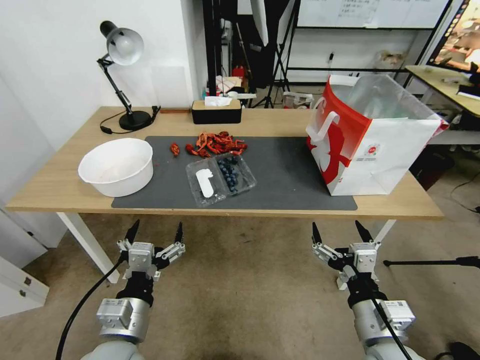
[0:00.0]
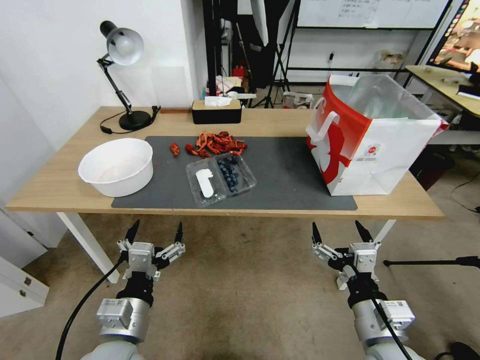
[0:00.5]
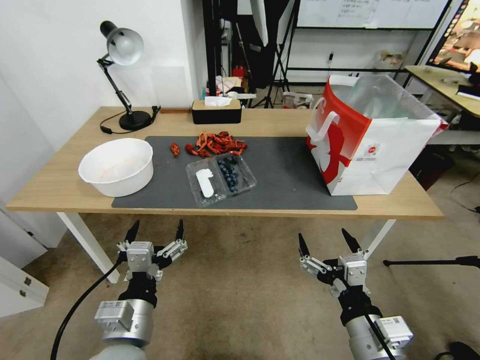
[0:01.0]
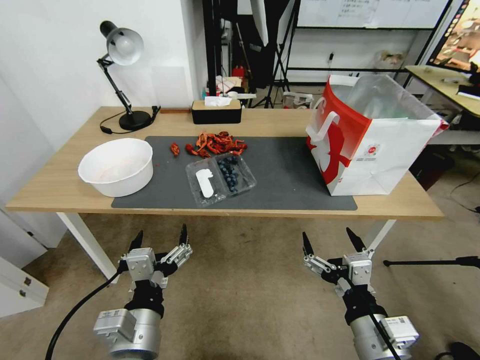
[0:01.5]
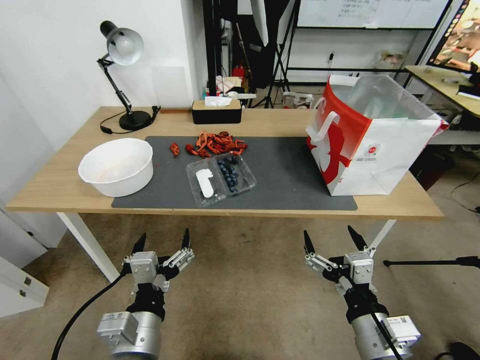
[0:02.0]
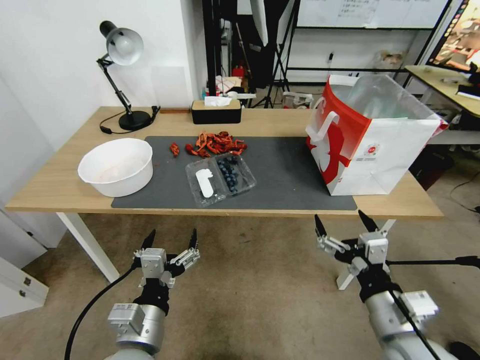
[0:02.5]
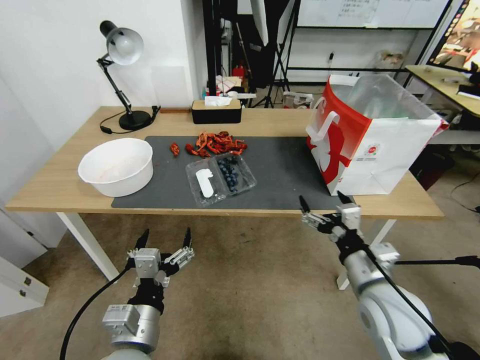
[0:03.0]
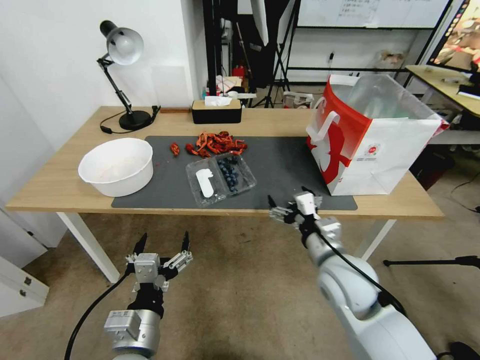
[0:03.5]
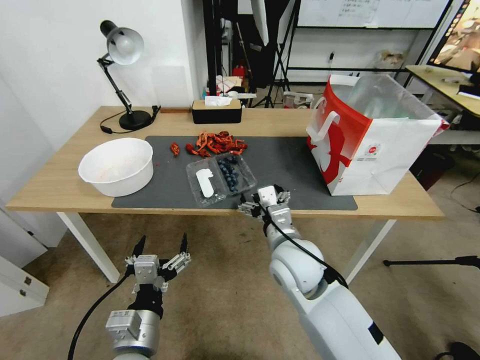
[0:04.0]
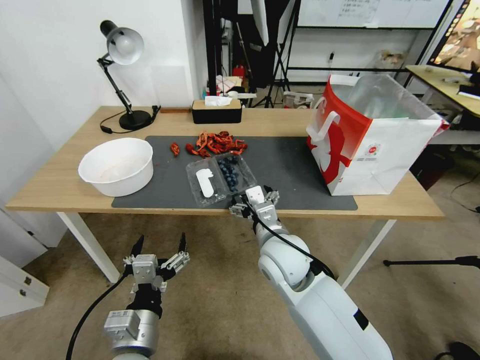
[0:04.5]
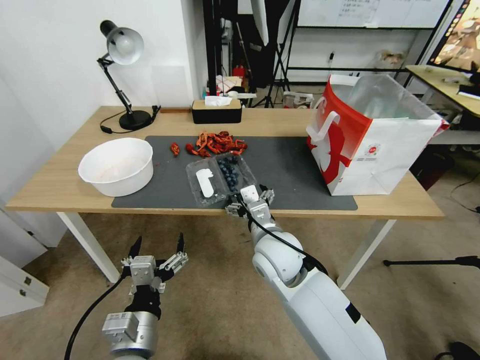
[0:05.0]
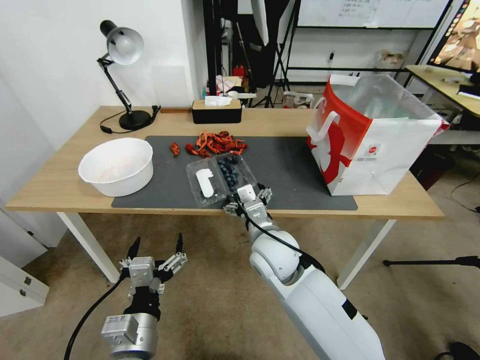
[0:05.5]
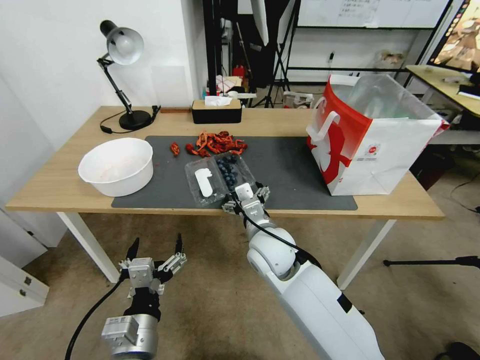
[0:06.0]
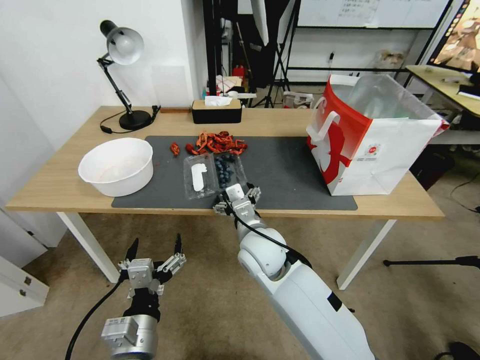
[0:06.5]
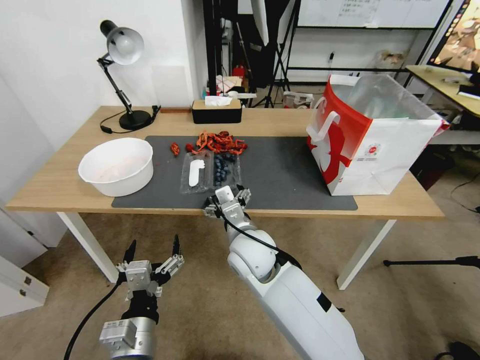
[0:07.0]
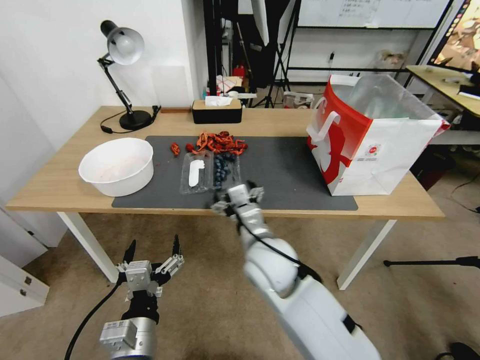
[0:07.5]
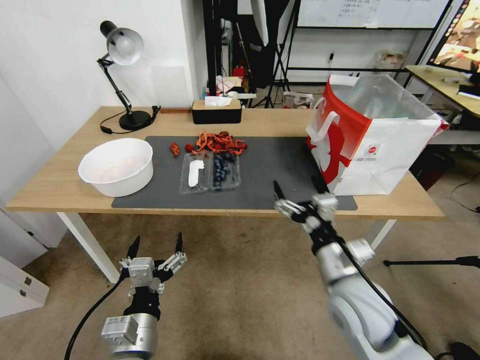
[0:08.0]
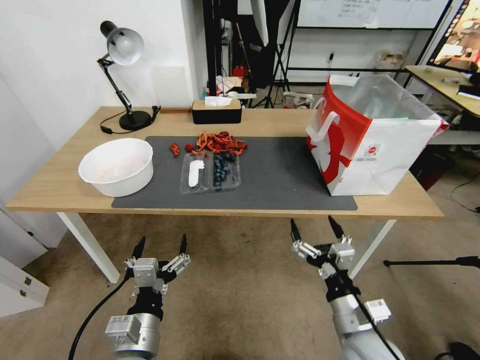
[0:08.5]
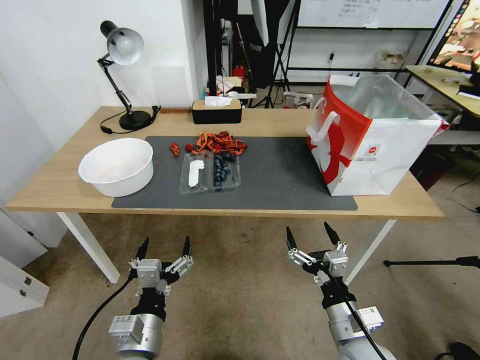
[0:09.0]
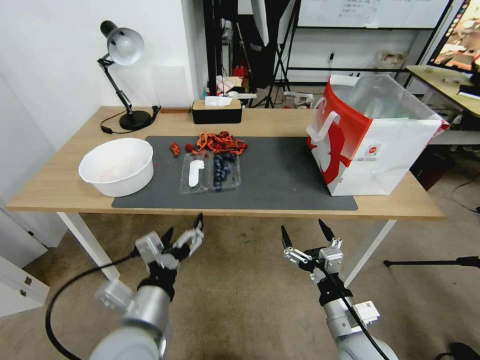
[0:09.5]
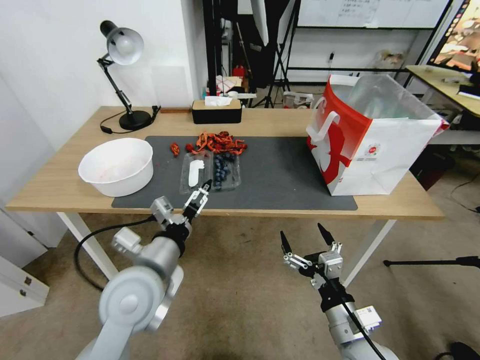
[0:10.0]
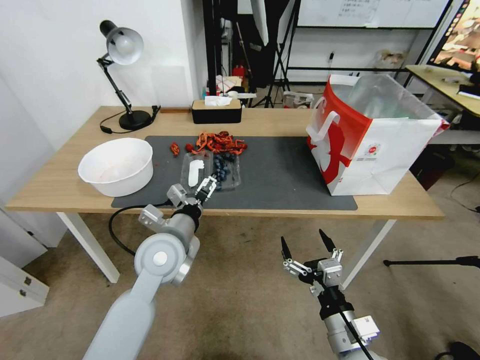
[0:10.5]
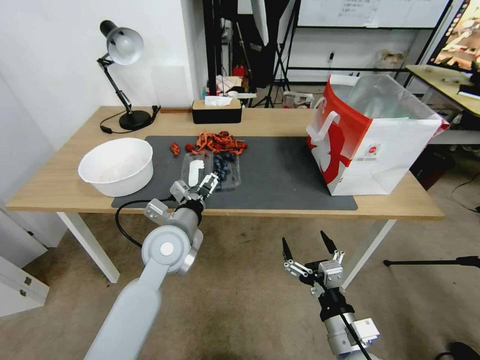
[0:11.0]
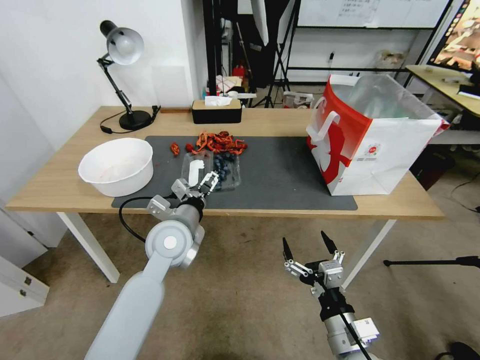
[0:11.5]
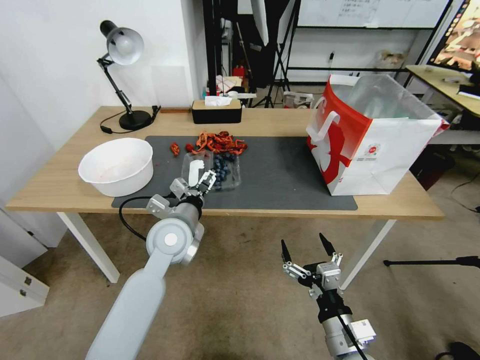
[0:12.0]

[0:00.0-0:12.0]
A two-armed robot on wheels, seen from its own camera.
Task of the whole recording: Close the takeout container lid, then place the container into the takeout bag.
0:02.0 to 0:04.0: The right gripper goes some 20 cm forward and to the left.
0:04.0 to 0:06.0: The right gripper changes place by about 5 cm.
0:06.0 to 0:08.0: The right gripper travels to the right and backward by some 15 cm.
0:08.0 to 0:10.0: The left gripper is displaced forward and upward by about 15 cm. The right gripper goes roughly 10 cm backward and downward.
0:10.0 to 0:12.0: The left gripper goes approximately 10 cm forward.

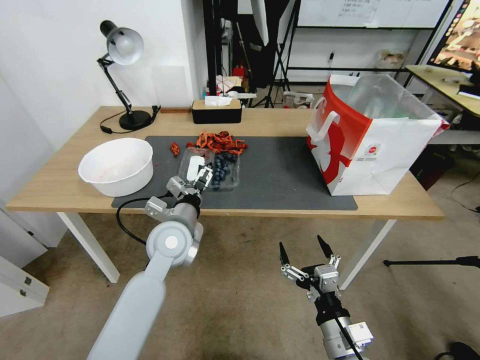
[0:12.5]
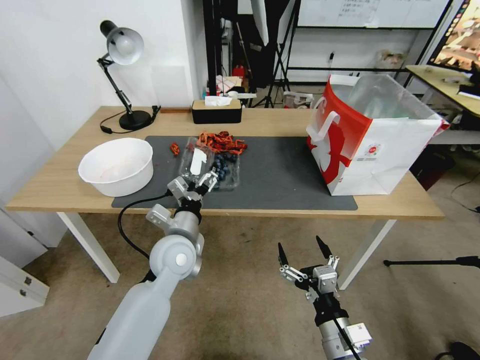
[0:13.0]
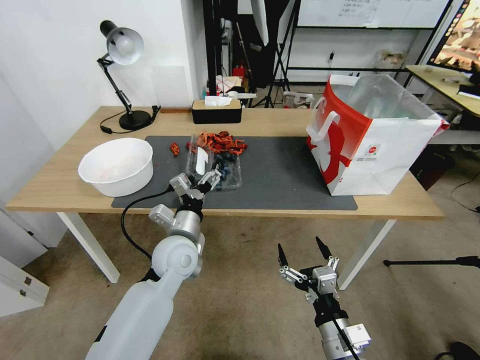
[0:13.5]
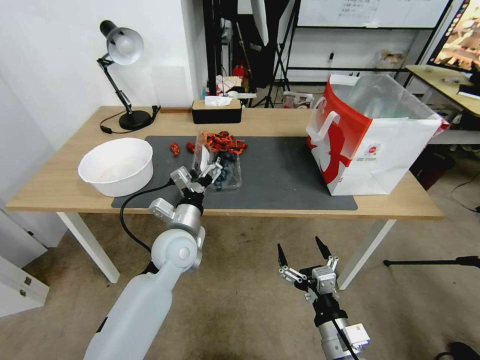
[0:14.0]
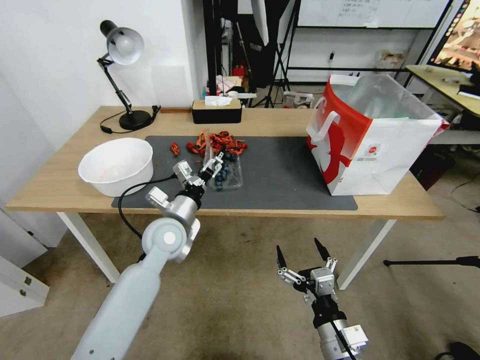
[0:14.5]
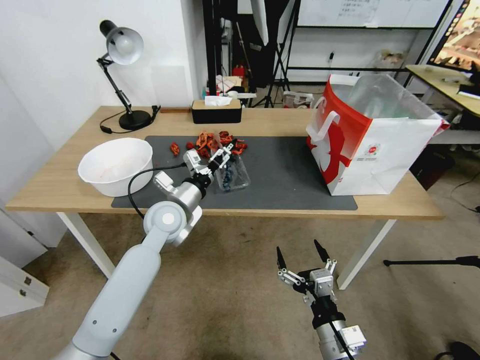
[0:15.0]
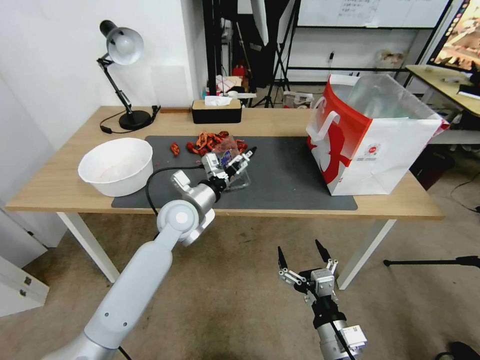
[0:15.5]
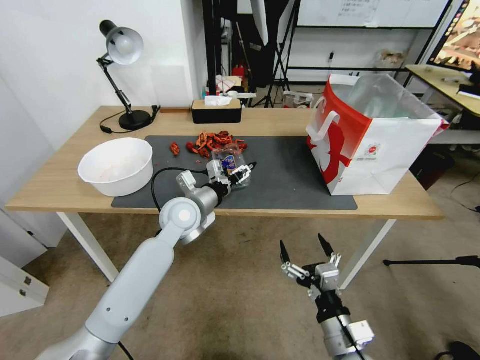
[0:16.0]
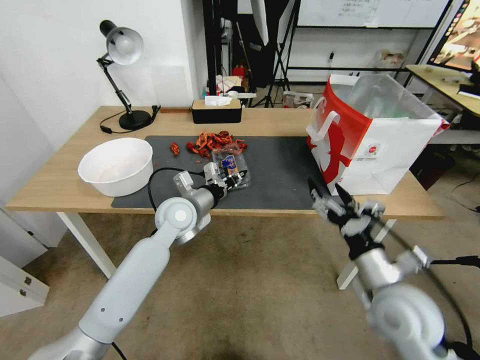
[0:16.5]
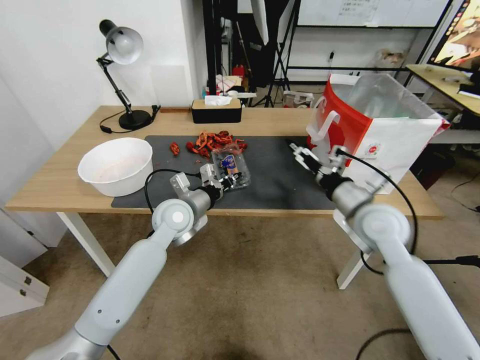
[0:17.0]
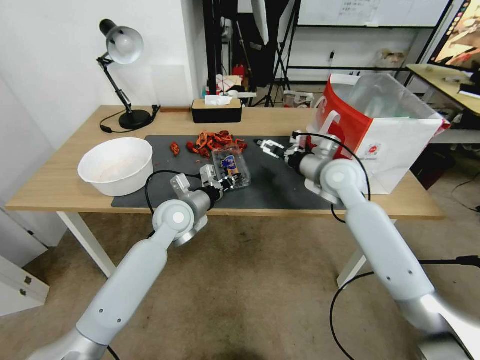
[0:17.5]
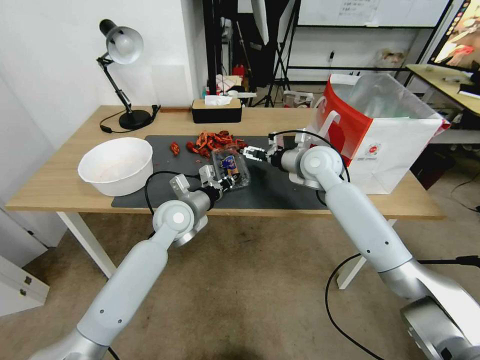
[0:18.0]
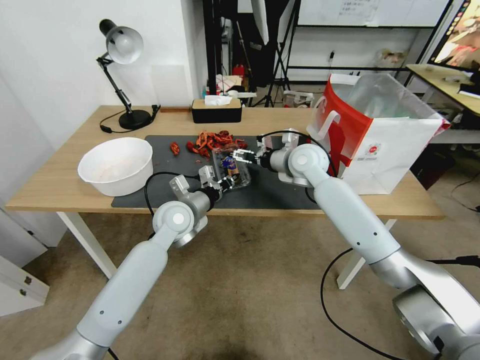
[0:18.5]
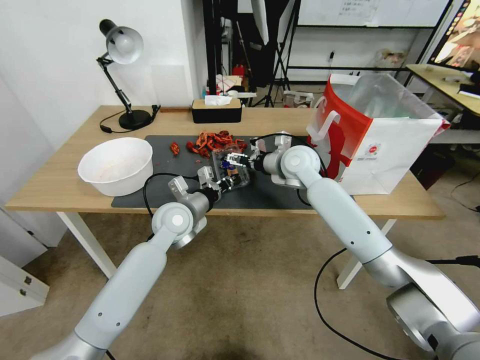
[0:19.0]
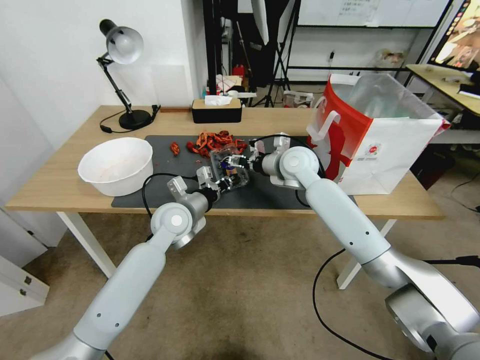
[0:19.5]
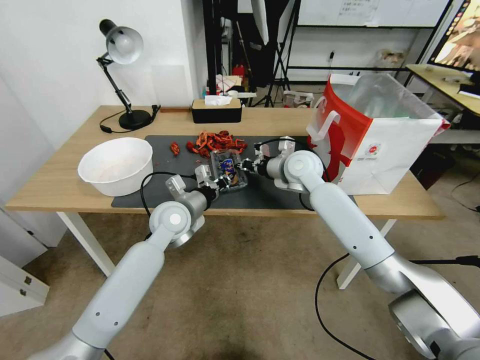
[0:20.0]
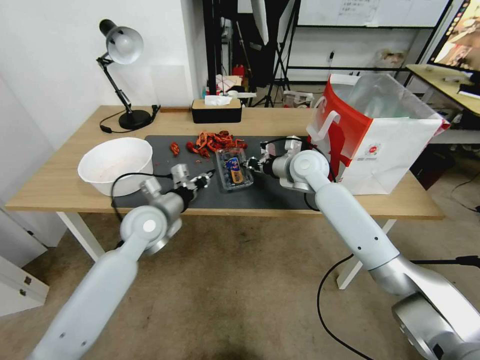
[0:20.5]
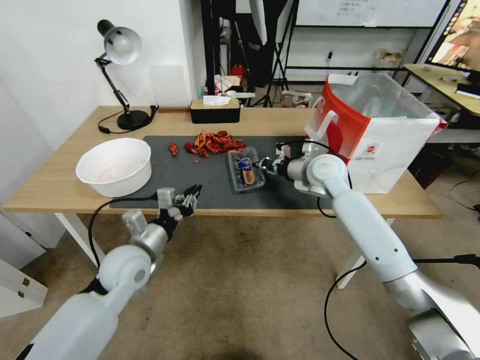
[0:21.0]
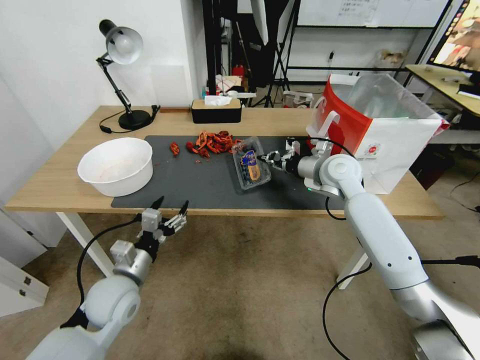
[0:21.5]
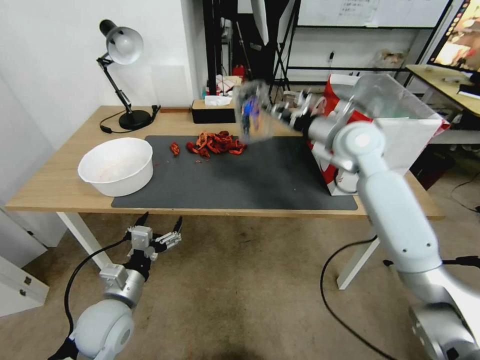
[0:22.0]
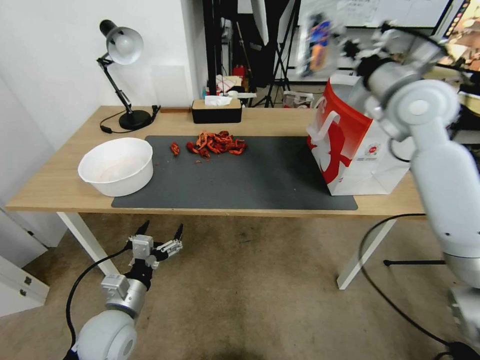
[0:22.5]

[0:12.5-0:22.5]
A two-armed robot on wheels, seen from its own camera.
Task of the whole recording: Close the takeout container lid, then place the container into the takeout bag.
0:14.5 to 0:16.5: The left gripper ends up roughly 5 cm from where it was, and closes. Meanwhile the right gripper moves upward, forward and to the right, approximately 15 cm.
0:16.5 to 0:18.5: The right gripper heads forward, covering some 30 cm.
0:18.5 to 0:20.5: The left gripper moves to the left, approximately 5 cm, while the right gripper closes its fingers.
0:20.5 to 0:22.5: The right gripper travels upward and to the right by roughly 25 cm, while the left gripper is displaced backward and downward by some 20 cm, and opens up.

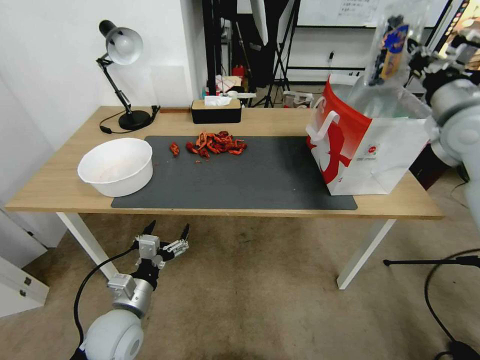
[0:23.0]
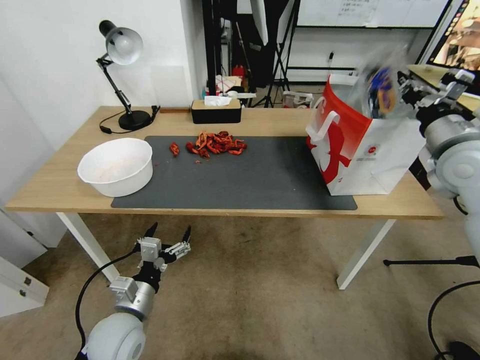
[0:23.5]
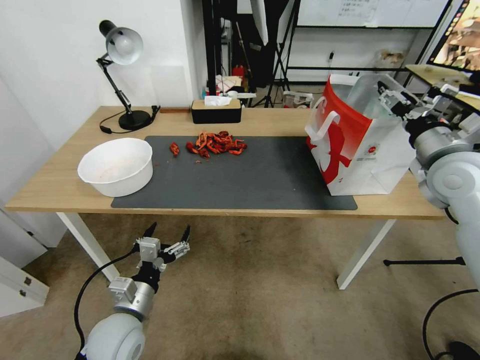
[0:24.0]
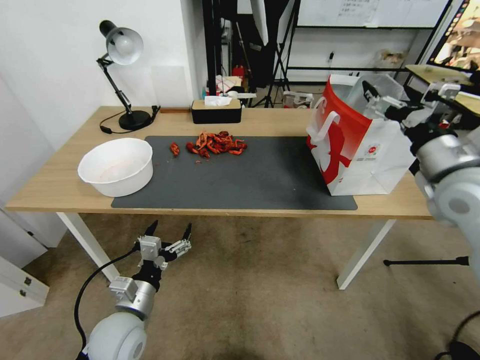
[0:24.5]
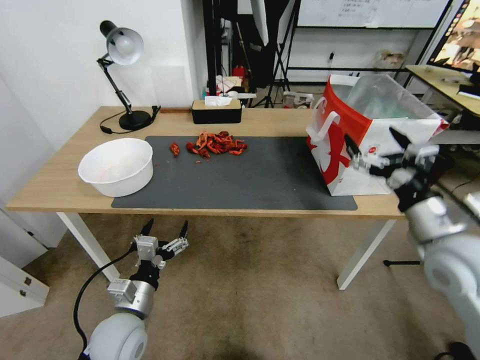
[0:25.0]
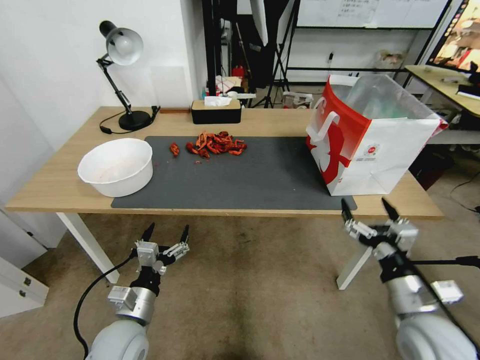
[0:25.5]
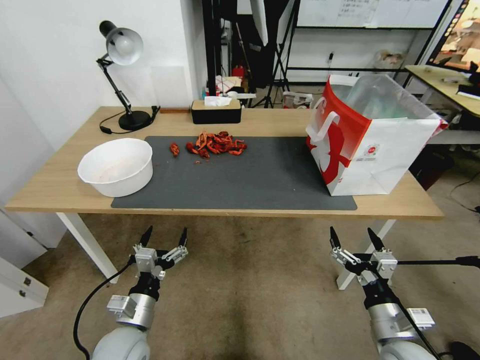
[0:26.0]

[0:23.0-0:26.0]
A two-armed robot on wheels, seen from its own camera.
Task of the whole recording: Close the takeout container lid, then place the container into the takeout bag.
0:23.0 to 0:24.5: The right gripper goes approximately 10 cm backward and downward, and opens its fingers.
0:24.5 to 0:26.0: The right gripper shifts roughly 30 cm downward and backward.
